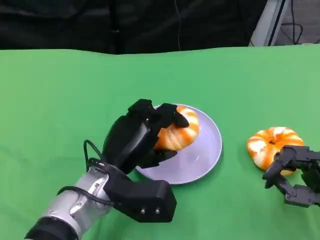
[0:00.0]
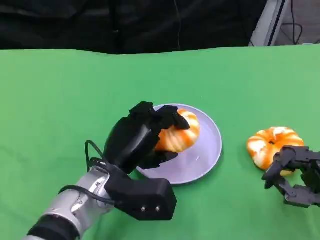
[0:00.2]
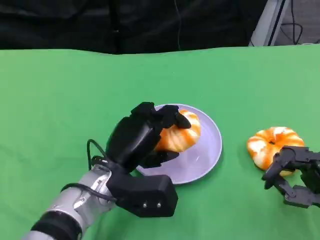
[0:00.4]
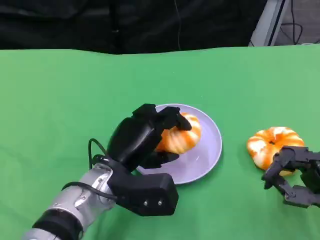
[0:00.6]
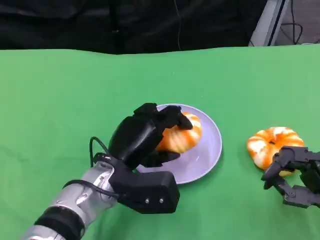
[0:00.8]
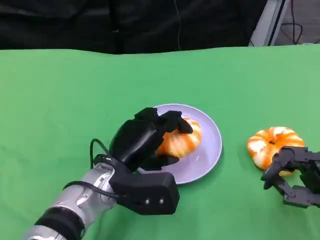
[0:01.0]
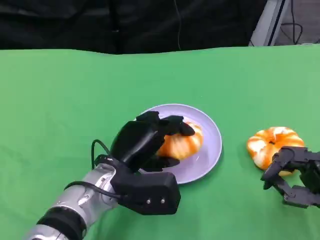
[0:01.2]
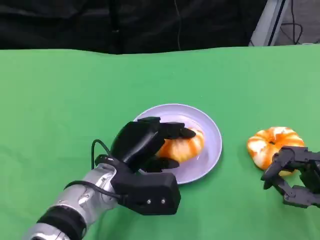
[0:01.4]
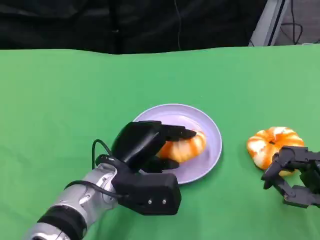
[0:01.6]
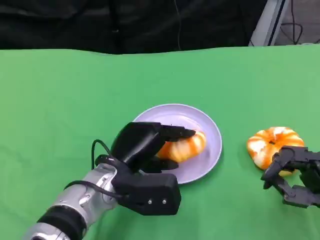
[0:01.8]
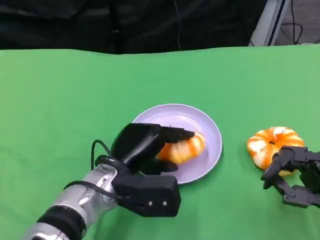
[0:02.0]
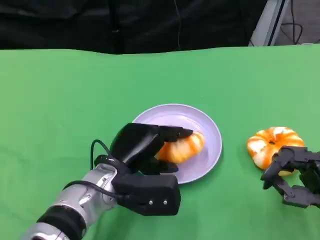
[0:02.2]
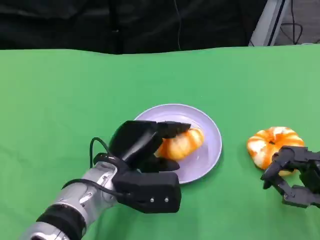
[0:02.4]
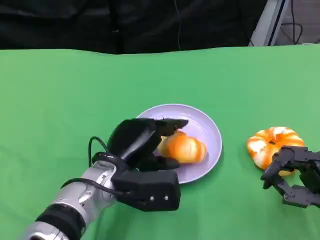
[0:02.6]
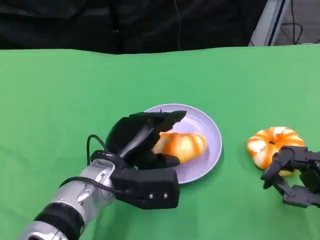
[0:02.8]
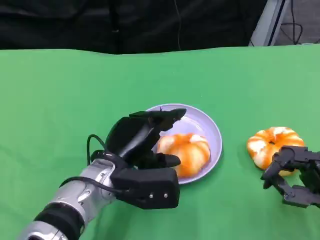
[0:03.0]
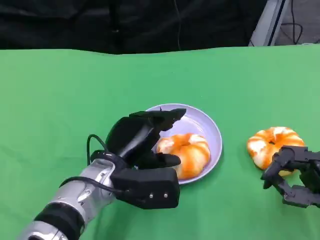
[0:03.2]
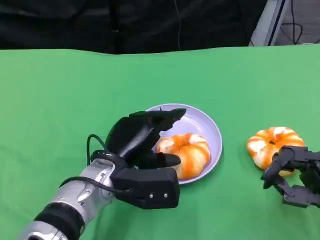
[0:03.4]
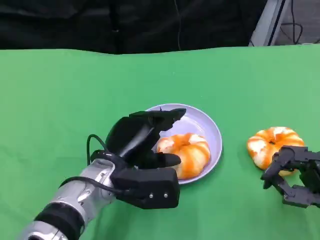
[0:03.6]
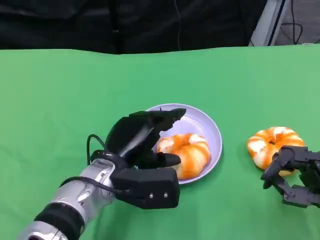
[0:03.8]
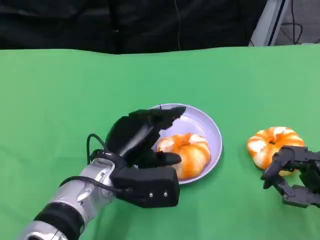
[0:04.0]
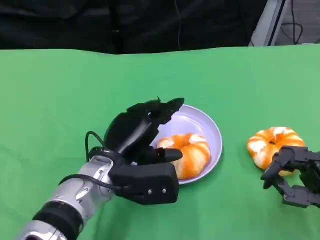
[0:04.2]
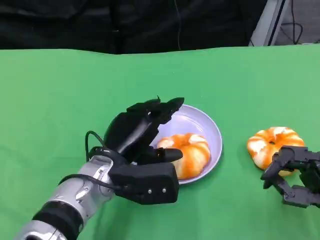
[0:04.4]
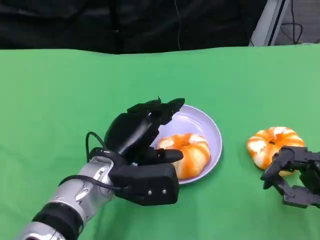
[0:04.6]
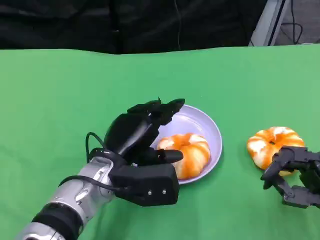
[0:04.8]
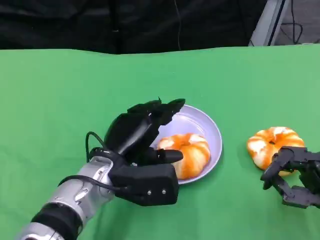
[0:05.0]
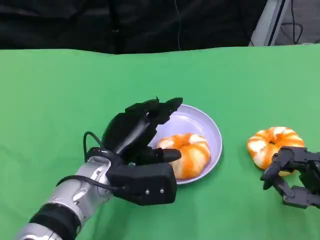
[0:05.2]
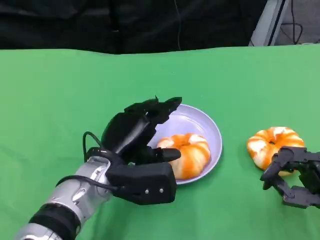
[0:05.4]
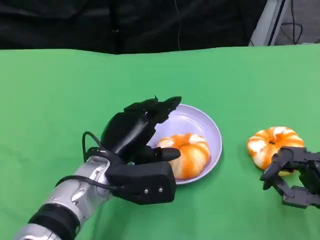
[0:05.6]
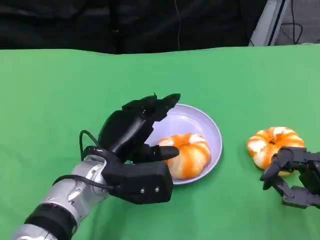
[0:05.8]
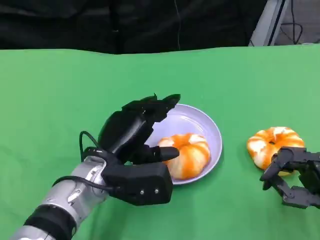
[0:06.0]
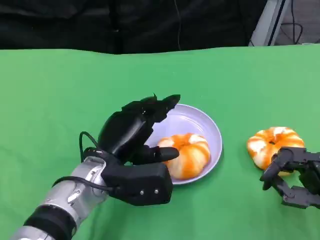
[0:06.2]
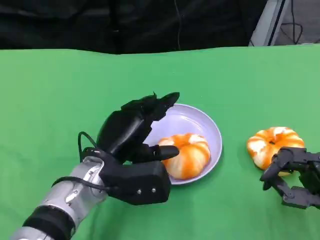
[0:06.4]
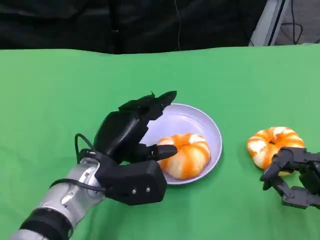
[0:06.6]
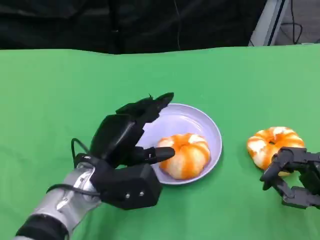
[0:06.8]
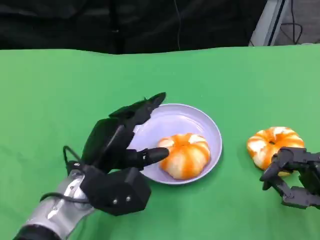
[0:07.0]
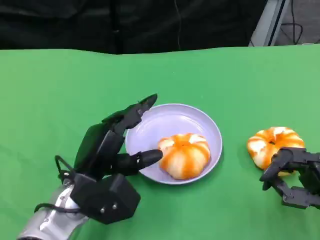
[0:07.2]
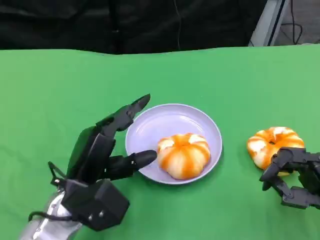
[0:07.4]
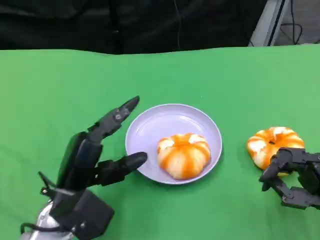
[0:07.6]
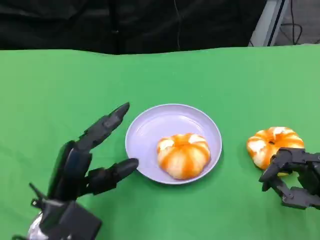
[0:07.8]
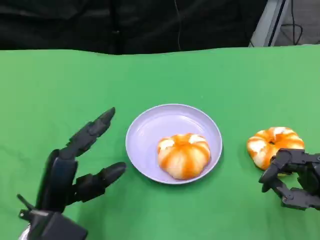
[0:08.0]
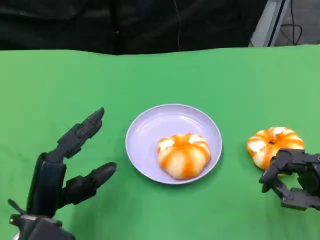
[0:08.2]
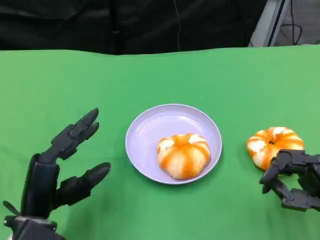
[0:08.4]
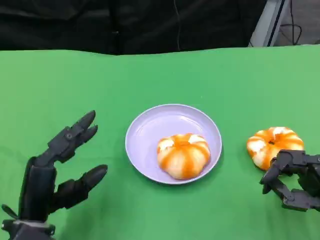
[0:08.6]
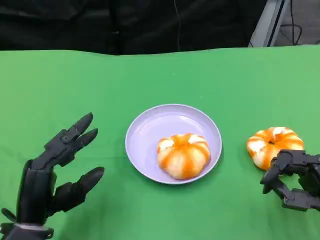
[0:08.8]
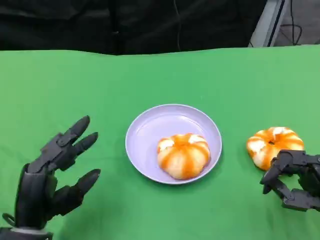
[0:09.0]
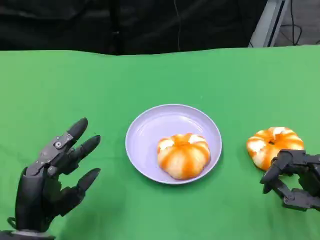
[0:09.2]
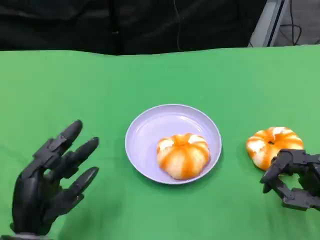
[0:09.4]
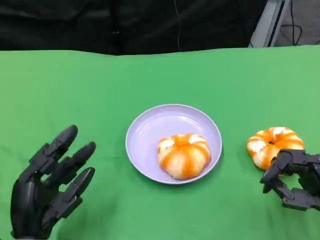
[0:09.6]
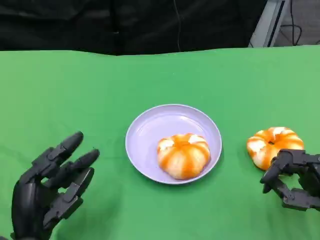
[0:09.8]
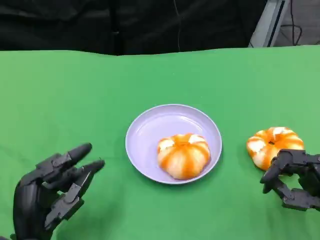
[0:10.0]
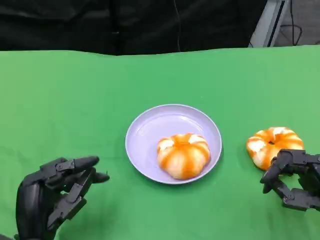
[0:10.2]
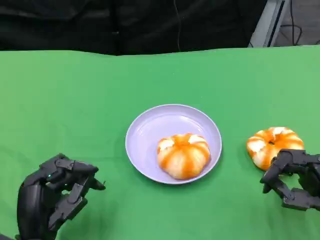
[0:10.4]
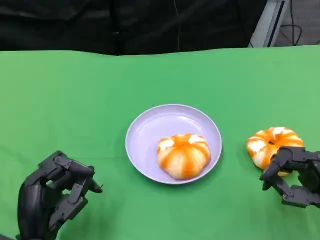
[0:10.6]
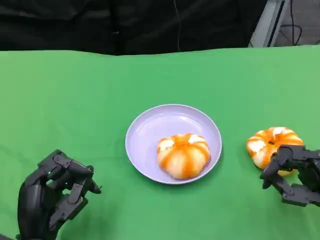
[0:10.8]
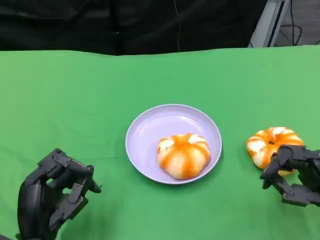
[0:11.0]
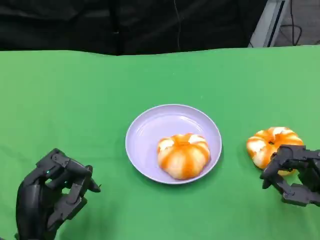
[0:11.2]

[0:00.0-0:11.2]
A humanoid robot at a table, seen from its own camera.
Task of the whole recording: Grasp the bread from the table and place it into the plate.
0:00.0 to 0:03.2: There are only small adjustments of the hands.
0:03.2 to 0:04.8: Both hands stay about where they are.
0:04.8 to 0:06.4: The hands stay close to where they were, moving slightly.
0:06.4 to 0:08.0: The left hand is displaced to the left and backward by roughly 10 cm.
0:09.6 to 0:11.2: The two hands keep their place.

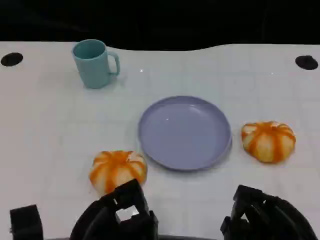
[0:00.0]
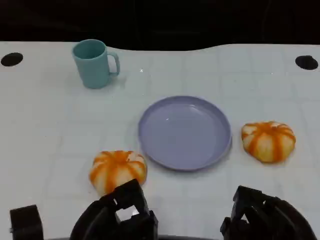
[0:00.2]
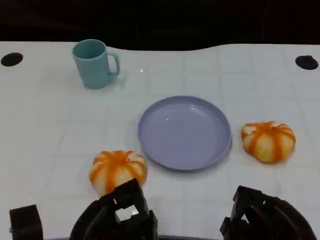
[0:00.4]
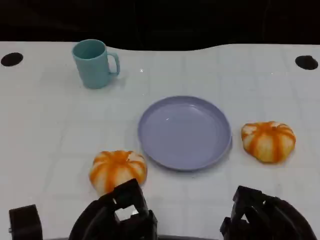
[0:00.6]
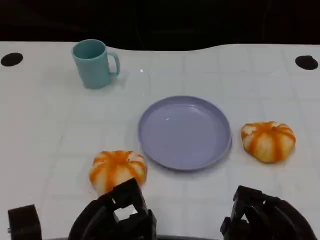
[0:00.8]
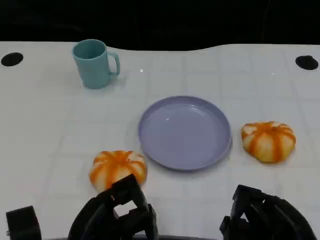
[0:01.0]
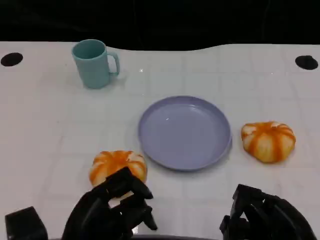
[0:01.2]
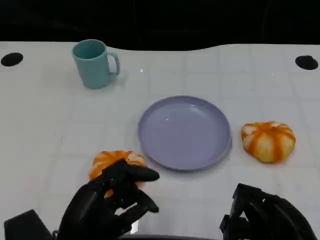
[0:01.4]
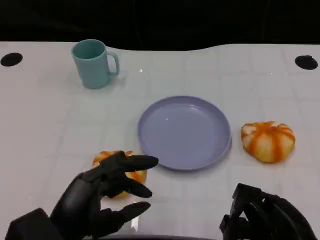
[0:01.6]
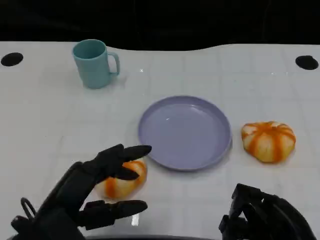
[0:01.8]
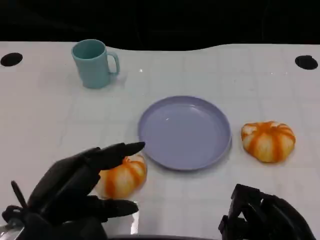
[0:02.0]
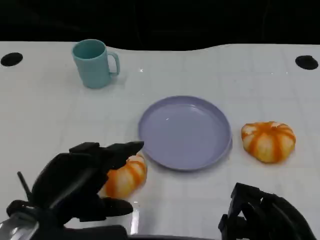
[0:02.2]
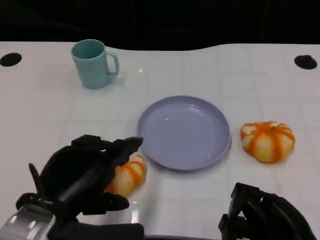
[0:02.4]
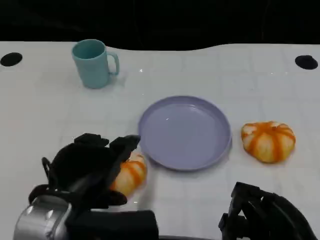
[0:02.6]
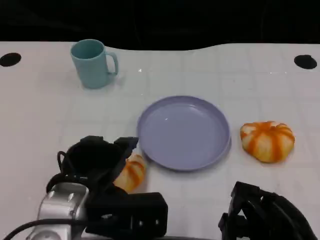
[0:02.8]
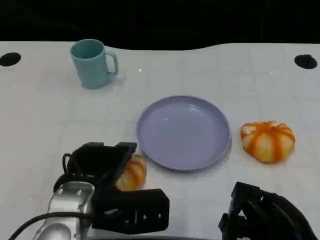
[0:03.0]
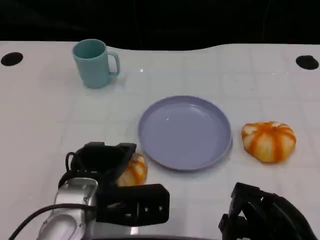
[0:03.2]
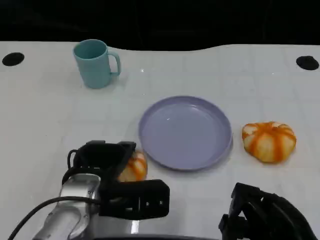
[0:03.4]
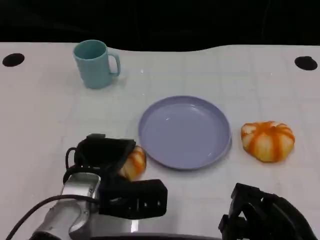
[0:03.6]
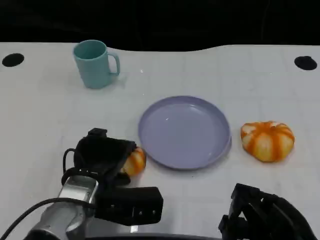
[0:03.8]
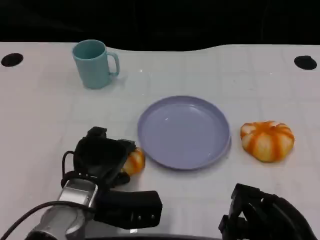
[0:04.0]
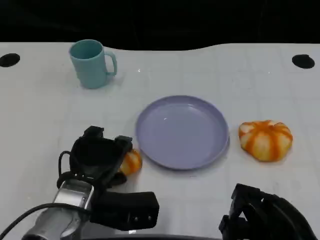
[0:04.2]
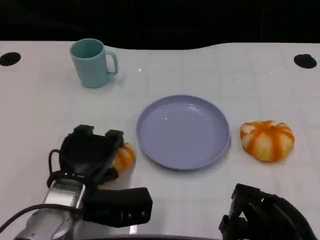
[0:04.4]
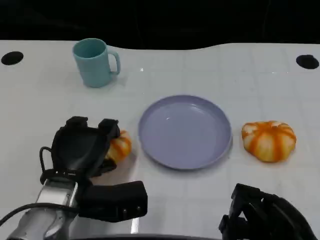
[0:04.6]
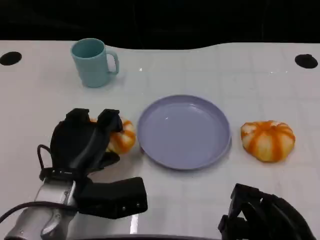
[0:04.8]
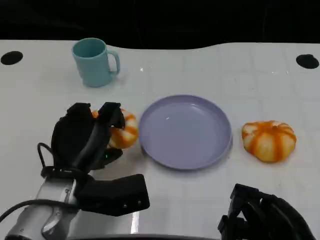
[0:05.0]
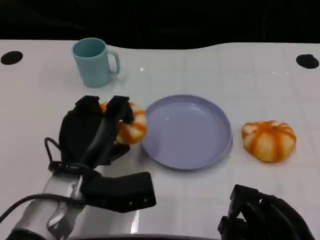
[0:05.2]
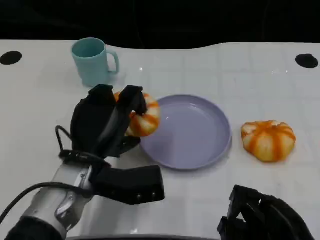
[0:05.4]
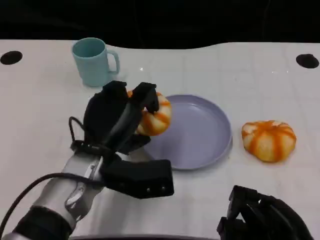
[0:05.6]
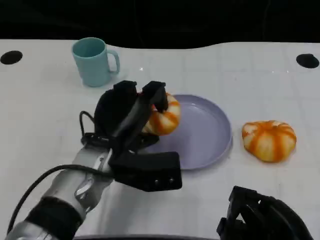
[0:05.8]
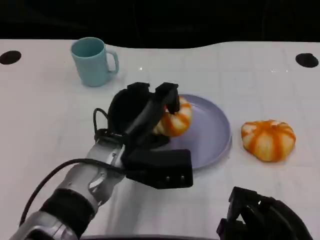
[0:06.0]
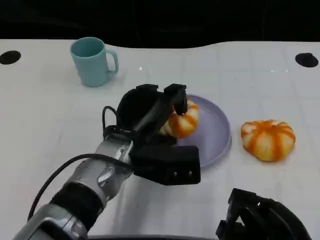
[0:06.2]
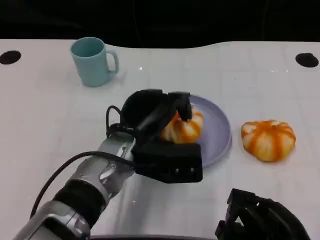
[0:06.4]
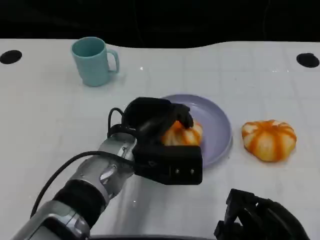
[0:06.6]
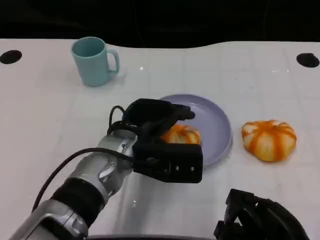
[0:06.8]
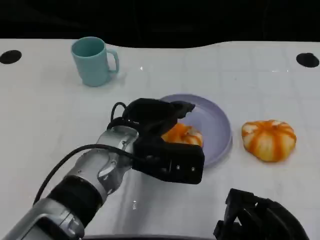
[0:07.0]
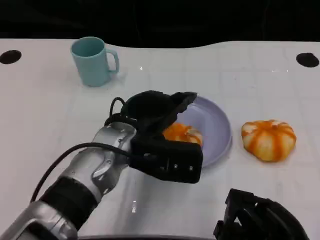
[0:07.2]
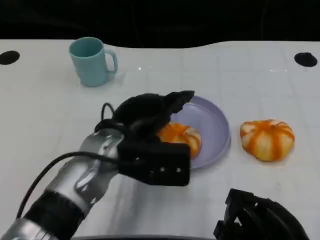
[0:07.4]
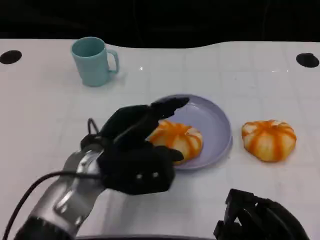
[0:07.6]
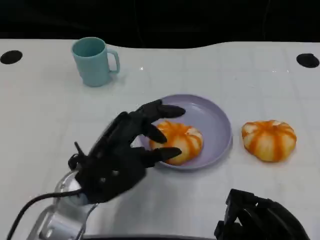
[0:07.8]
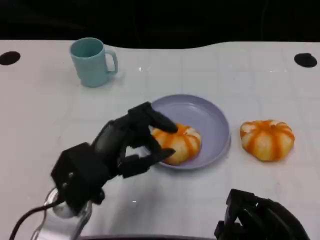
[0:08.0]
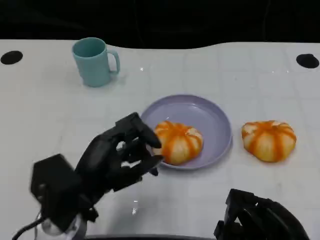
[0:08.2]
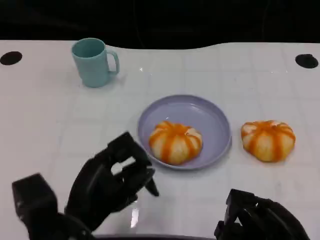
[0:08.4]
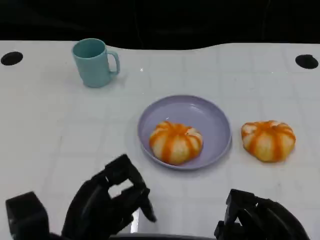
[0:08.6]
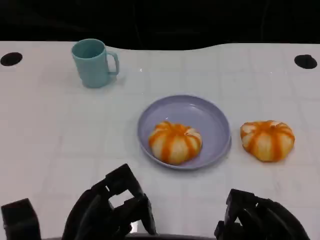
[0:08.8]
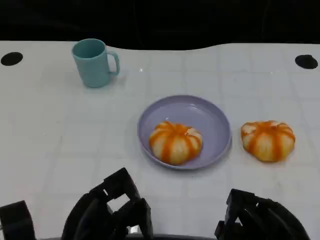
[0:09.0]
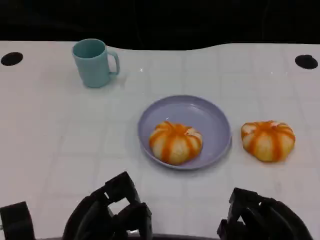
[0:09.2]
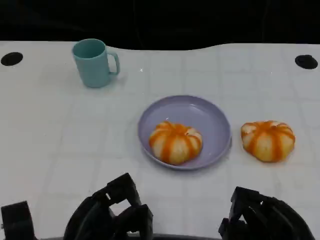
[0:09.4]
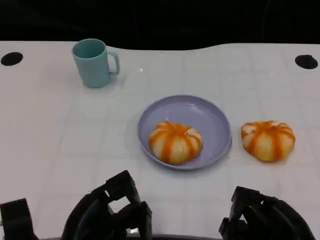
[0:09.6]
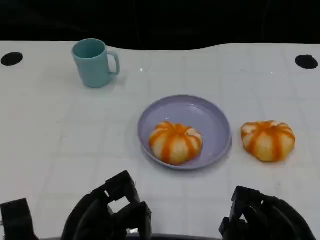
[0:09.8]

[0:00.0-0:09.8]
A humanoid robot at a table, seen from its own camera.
Task of the whole recording: Grasp the bread from the table and place it into the plate.
0:01.4 to 0:02.8: The left hand moves forward, some 5 cm.
0:02.8 to 0:04.2: The left hand goes roughly 5 cm downward.
0:04.2 to 0:05.6: The left hand ends up roughly 5 cm from where it was.
0:05.6 to 0:07.0: The left hand changes place by about 5 cm.
0:07.0 to 0:08.4: The left hand goes about 15 cm backward and to the left.
0:08.4 to 0:09.8: The hands stay close to where they were, moving slightly.

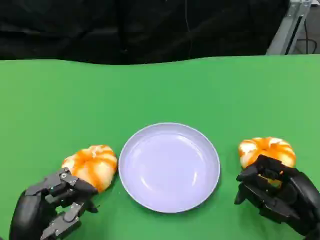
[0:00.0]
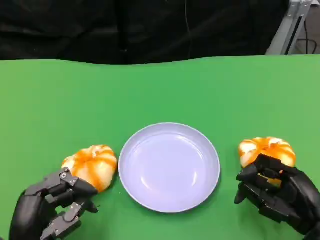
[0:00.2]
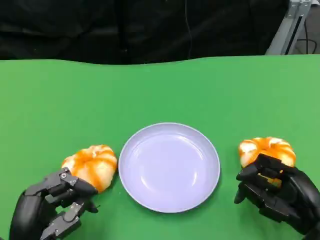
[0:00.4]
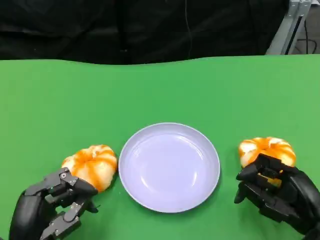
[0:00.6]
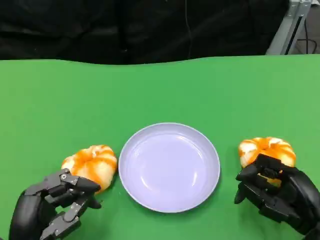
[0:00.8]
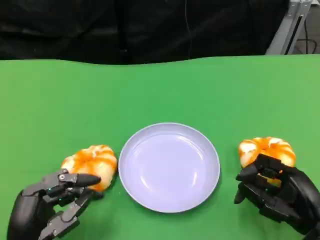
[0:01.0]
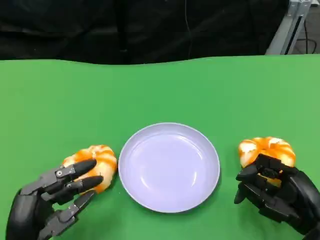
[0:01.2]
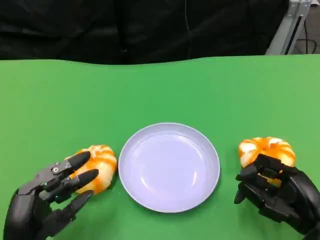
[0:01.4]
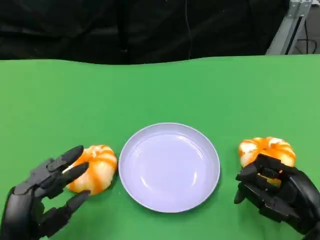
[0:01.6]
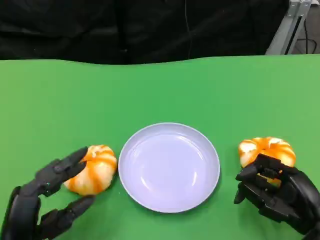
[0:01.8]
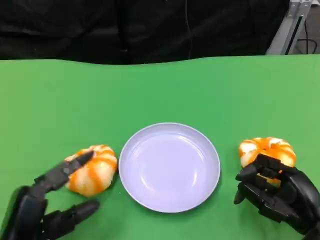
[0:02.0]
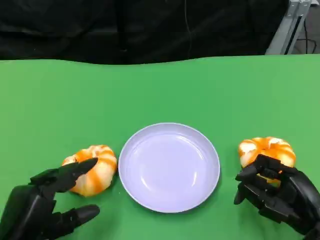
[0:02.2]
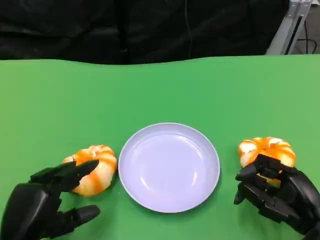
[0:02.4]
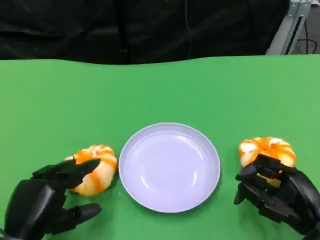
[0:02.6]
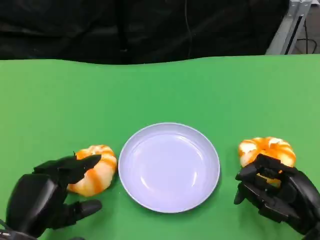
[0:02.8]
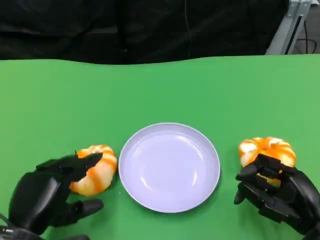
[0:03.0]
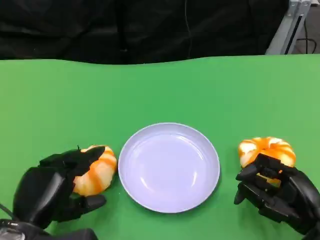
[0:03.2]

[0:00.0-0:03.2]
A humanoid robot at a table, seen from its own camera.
Task of the whole recording: Grasp the bread from the table and place it into the plate.
0:00.0 to 0:01.6: The hands stay close to where they were, moving slightly.
